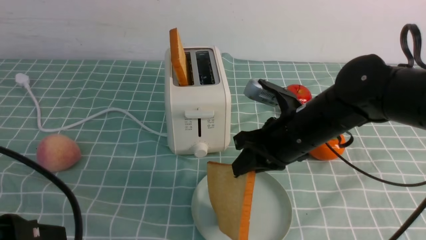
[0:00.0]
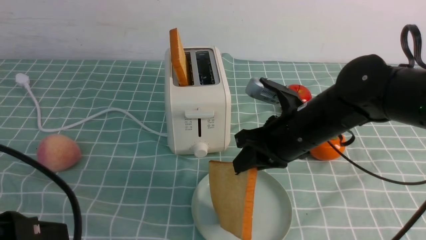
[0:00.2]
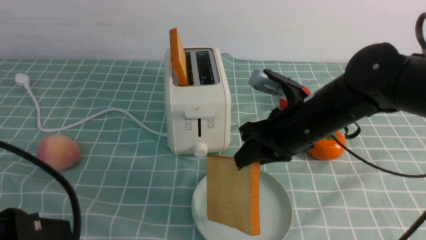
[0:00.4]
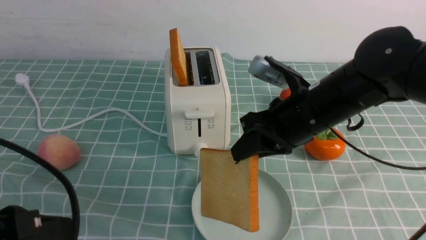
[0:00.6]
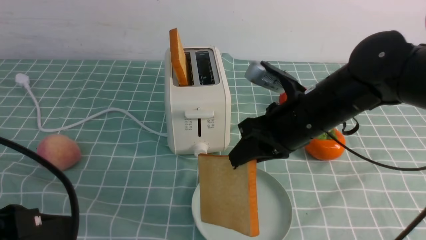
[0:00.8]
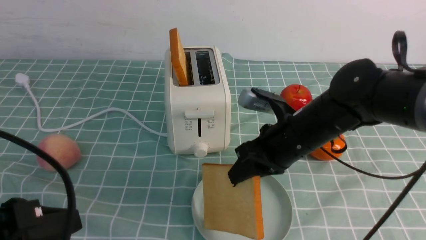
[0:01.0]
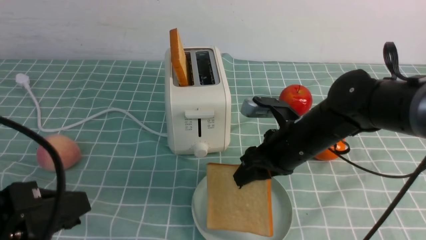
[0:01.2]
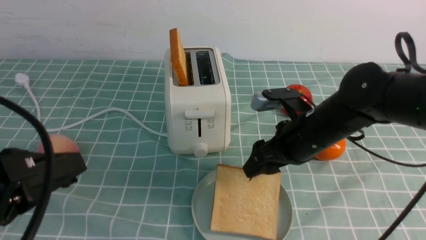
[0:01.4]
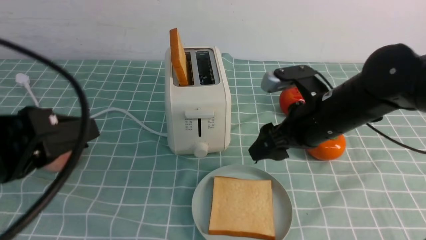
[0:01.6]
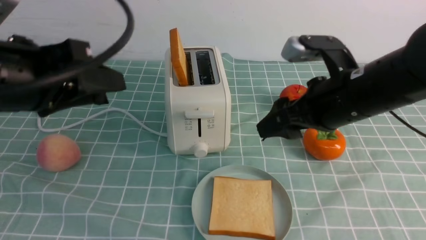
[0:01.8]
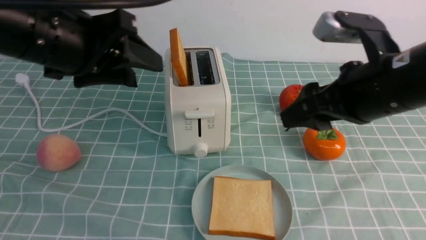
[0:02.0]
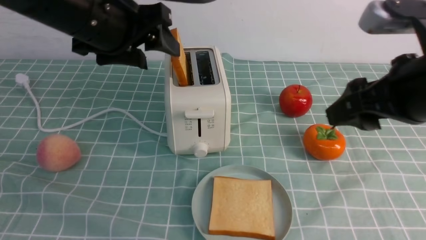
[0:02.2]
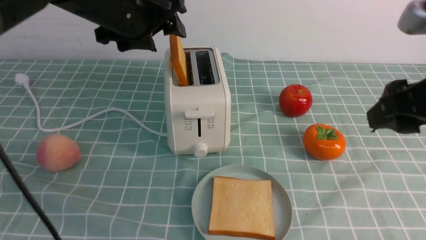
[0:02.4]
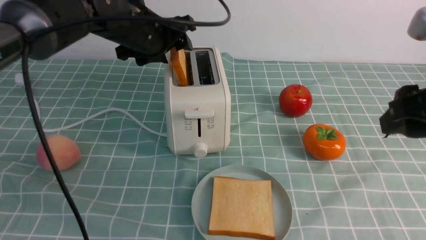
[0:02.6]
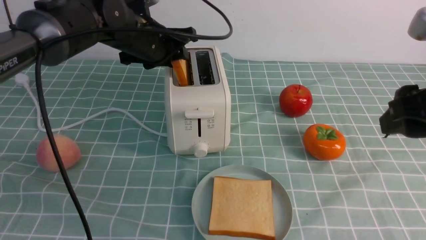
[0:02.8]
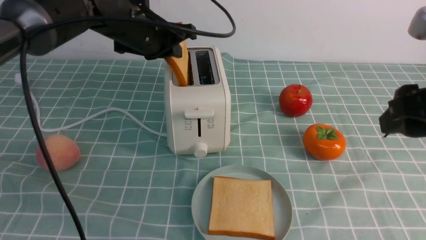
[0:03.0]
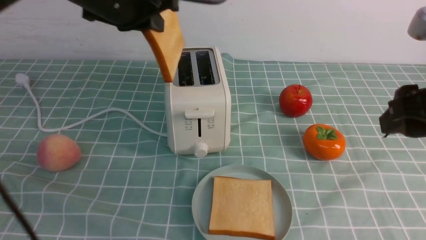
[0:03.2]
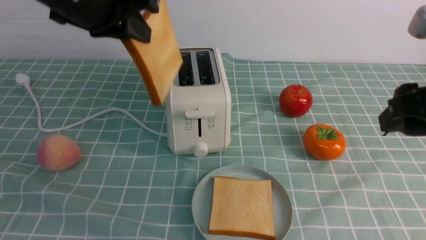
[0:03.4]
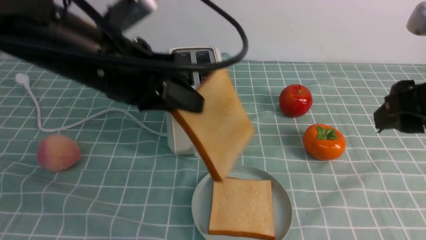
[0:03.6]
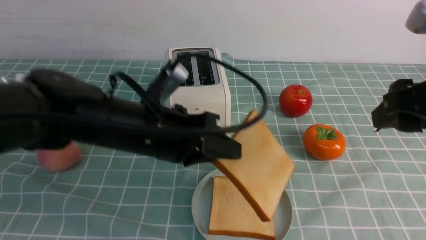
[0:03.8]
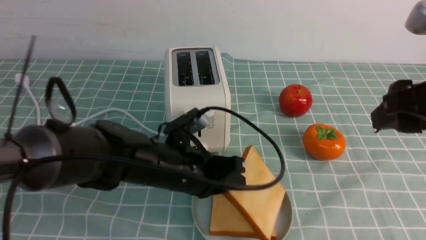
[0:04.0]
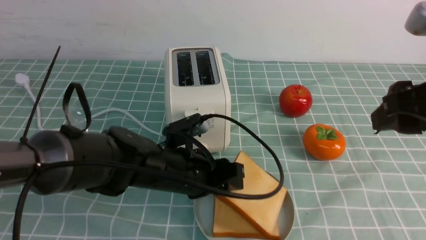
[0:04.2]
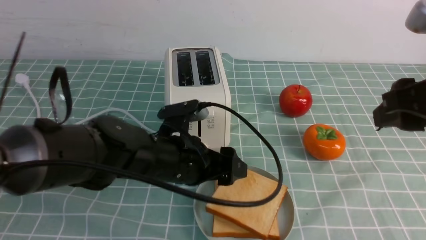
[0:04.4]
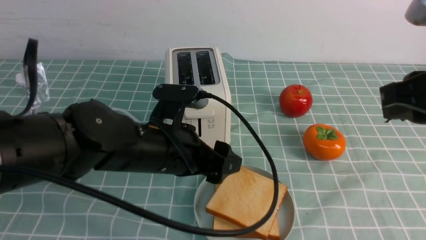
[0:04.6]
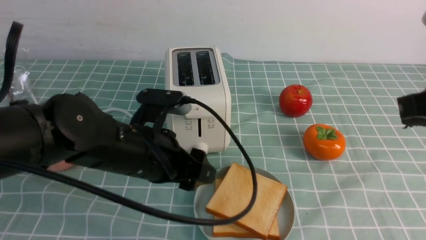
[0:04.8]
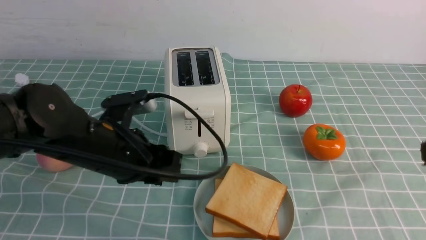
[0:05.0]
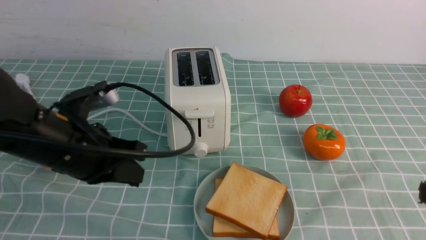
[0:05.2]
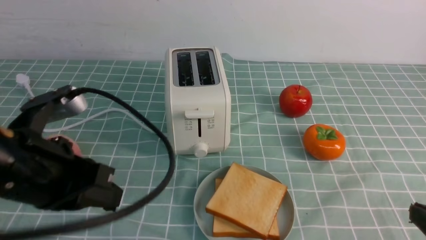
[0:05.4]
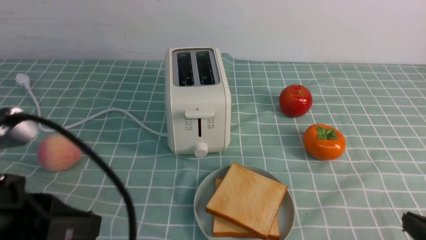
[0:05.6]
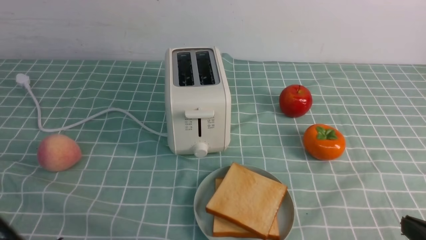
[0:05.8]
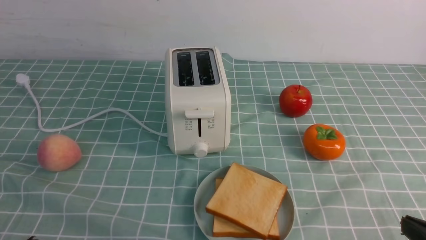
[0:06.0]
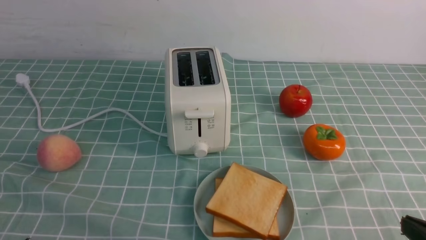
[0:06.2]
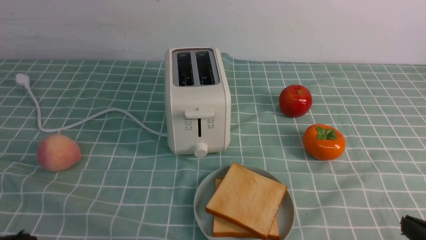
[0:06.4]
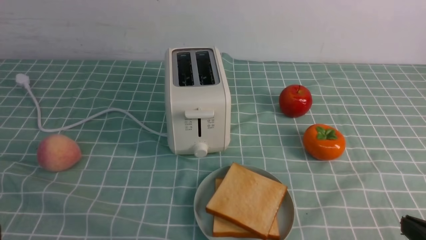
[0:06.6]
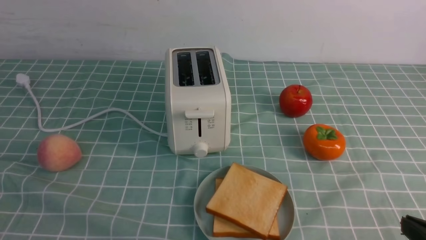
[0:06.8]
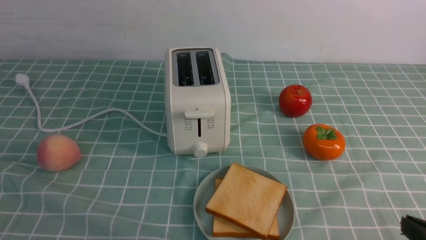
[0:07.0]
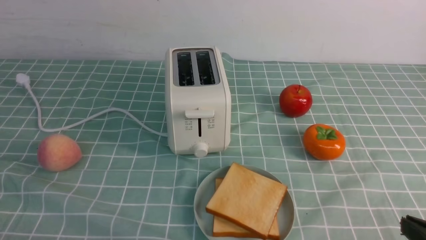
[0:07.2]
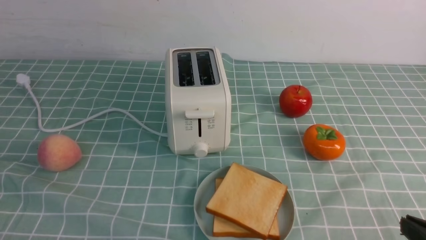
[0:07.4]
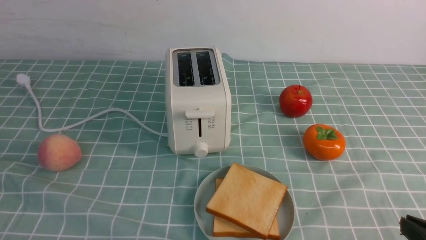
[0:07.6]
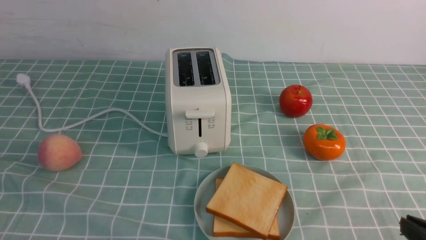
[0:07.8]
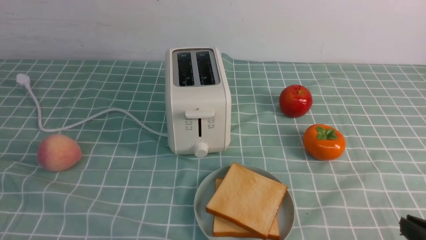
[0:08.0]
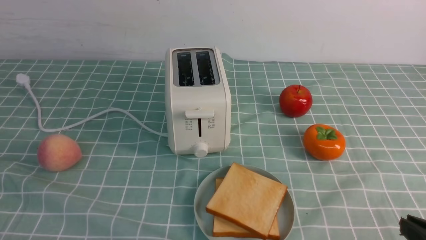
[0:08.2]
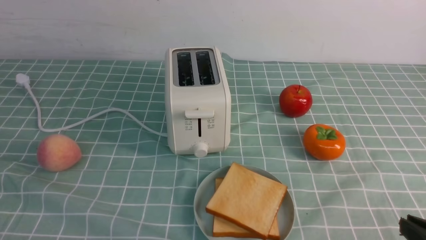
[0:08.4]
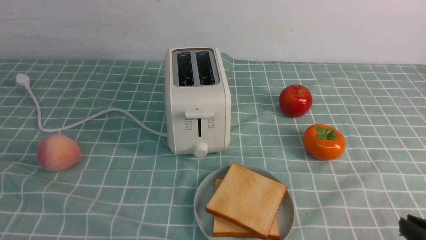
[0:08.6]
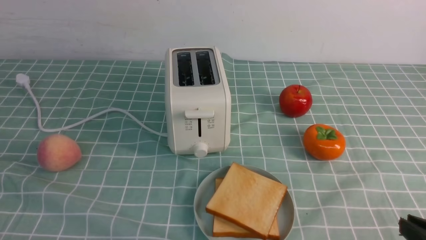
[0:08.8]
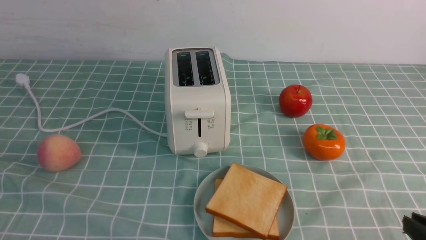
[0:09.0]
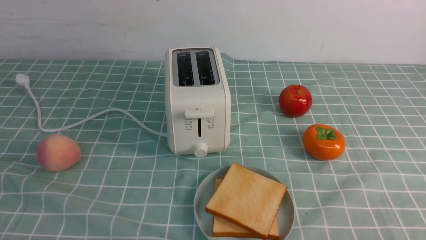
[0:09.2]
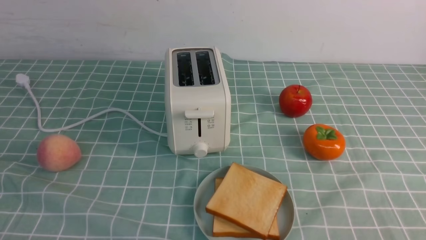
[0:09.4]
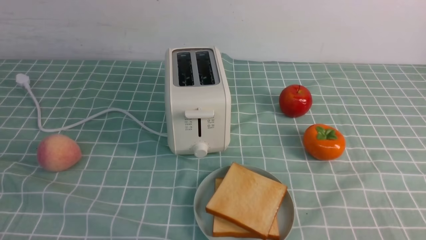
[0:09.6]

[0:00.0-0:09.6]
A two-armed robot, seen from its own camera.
Task of the whole recording: take toasted bread from bread machine on blue coffee table place on plate.
Step, 0:00.0 to 0:01.4: use the right arm to put a slice of bread into the plate.
Step, 0:01.6 to 0:03.2: use the left arm to take out a slice of bread.
Step, 0:03.4 to 0:05.6: use the left arm to put a slice of bread into the empty plate.
0:00.0 to 0:01.6: The left gripper heads forward and upward, covering about 10 cm. The right gripper opens.
0:01.6 to 0:03.2: The right gripper heads upward, backward and to the right, covering approximately 15 cm. Meanwhile the left gripper shifts about 20 cm forward, and closes its fingers.
0:03.2 to 0:04.8: The left gripper shifts roughly 20 cm downward and backward, and opens. The right gripper closes its fingers.
0:04.8 to 0:06.4: The left gripper shifts approximately 25 cm backward and to the left, and closes its fingers. The right gripper heads downward and backward, covering roughly 20 cm.
0:06.4 to 0:08.0: The left gripper heads downward, covering roughly 15 cm.

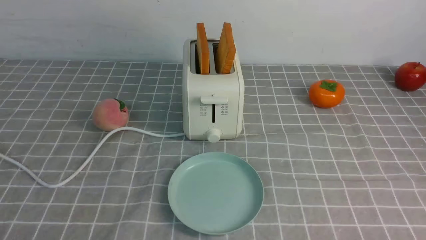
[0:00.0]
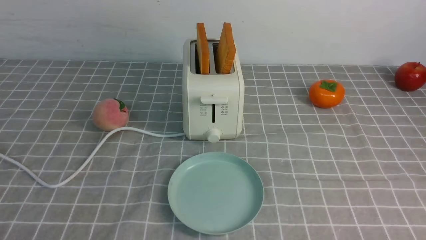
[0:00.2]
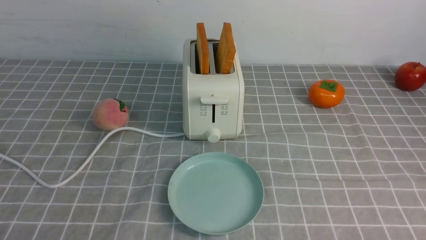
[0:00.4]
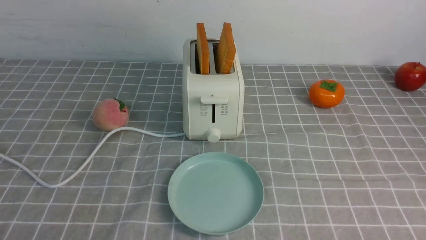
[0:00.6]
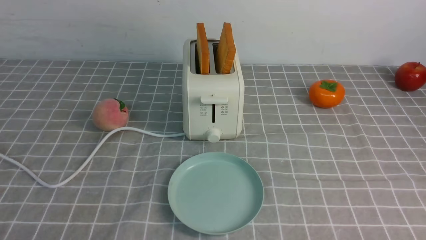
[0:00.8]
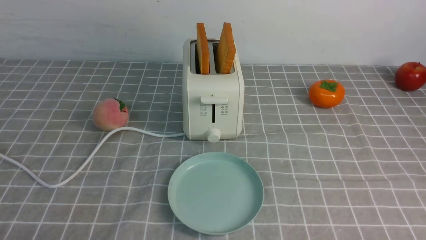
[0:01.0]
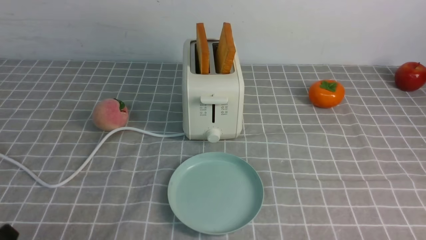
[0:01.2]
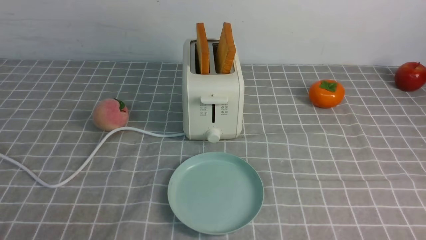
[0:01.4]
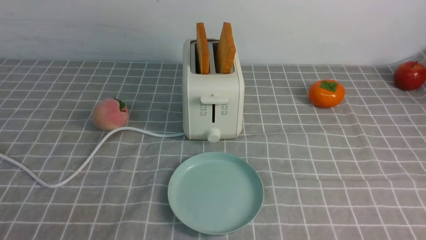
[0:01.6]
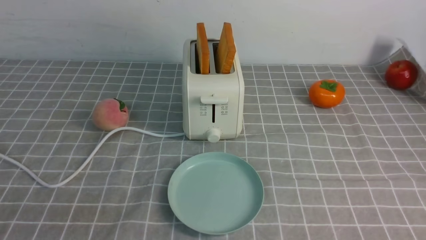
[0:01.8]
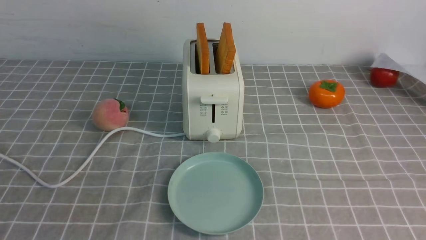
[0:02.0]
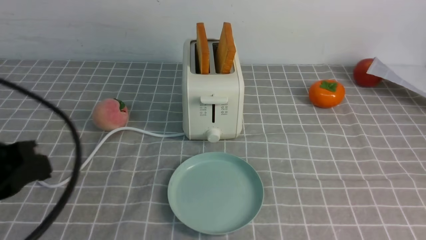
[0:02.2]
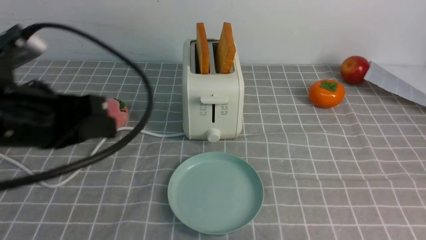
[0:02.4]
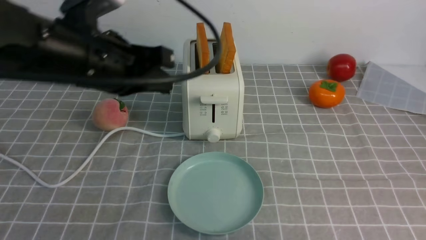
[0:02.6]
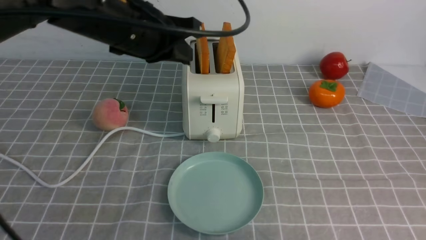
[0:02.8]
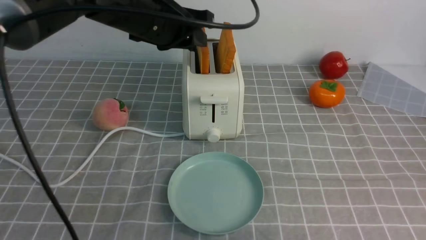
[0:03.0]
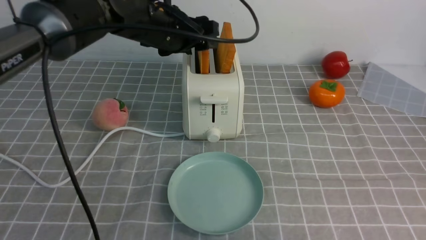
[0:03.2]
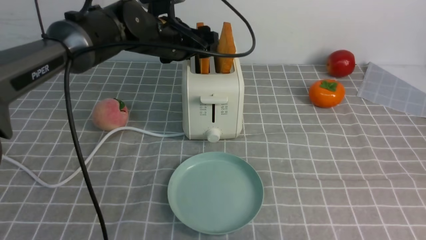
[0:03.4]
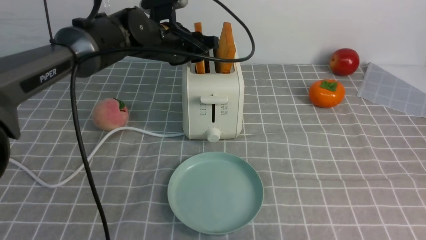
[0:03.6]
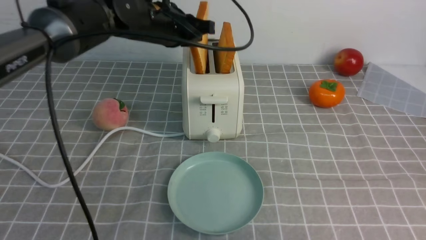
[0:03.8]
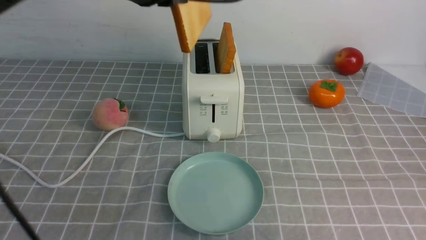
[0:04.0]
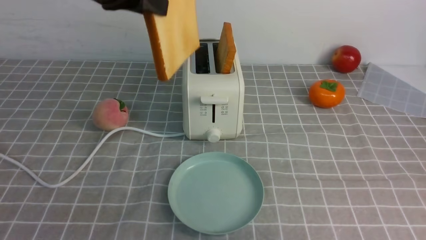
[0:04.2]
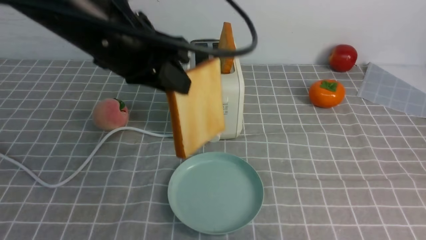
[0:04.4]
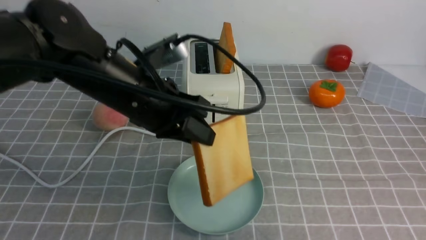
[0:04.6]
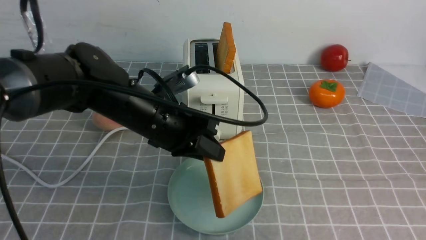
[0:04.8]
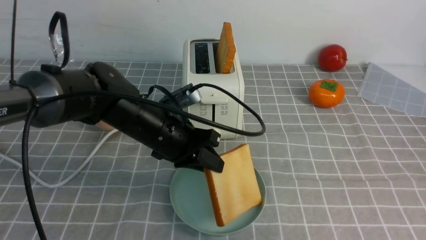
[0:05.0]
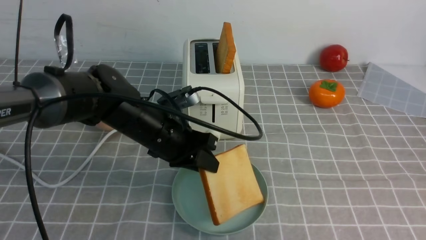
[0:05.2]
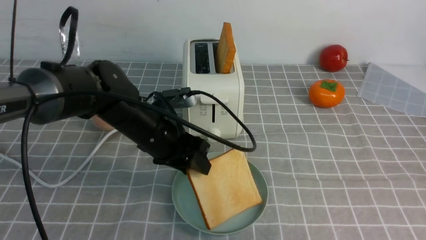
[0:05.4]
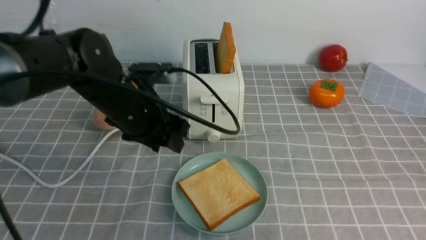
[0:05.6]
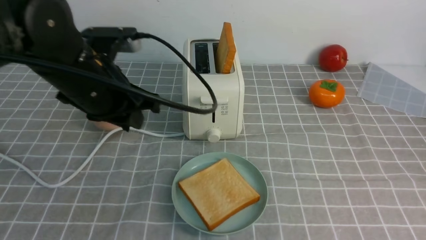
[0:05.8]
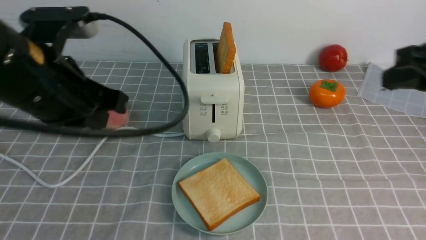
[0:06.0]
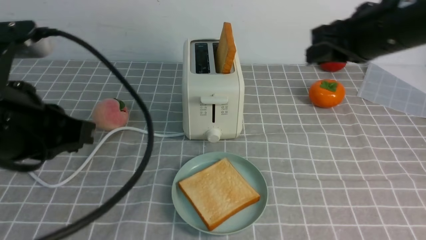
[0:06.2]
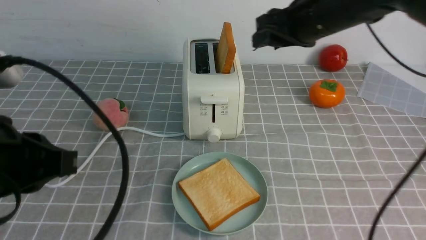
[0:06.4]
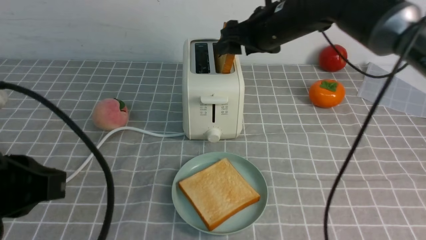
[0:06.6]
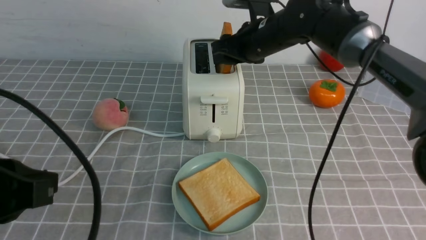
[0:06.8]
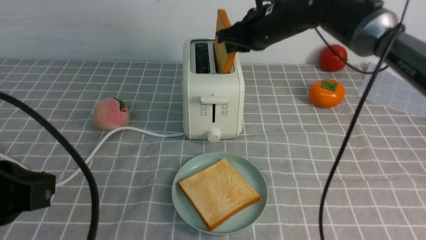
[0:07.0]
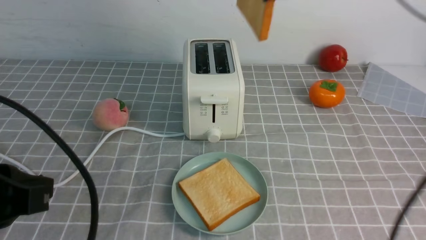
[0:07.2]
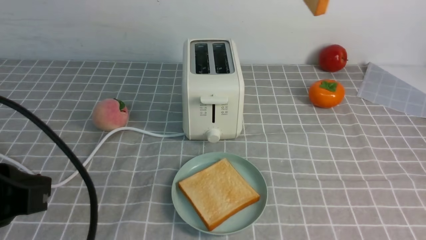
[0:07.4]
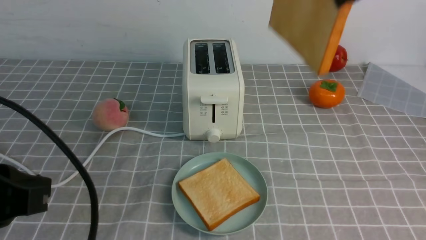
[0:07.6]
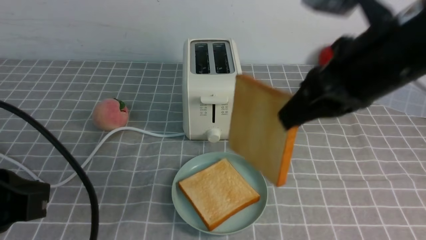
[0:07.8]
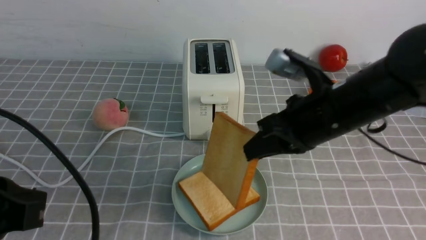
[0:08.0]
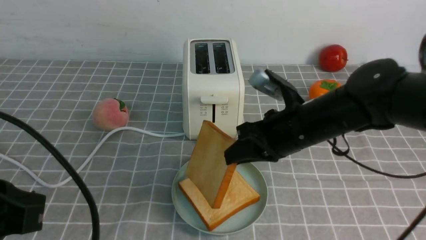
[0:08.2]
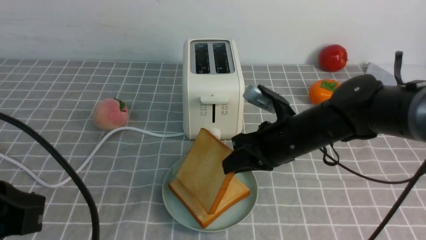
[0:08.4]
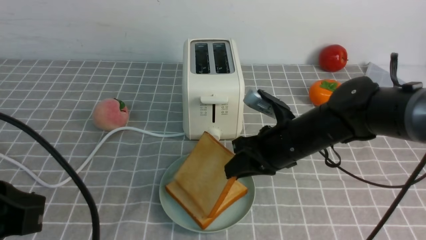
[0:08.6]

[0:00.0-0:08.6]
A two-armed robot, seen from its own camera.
Task of the whole recording: take toasted bread from bread machine on grey coffee table place on plate.
Step, 0:00.0 to 0:03.8: use the left arm to take out a slice of bread.
Step, 0:04.0 to 0:05.4: use the left arm to put a slice of bread into the empty plate.
Step, 0:05.6 to 0:07.0: use the right arm to take out a slice of bread.
0:01.4 to 0:02.8: The left gripper travels forward, upward and to the right by about 35 cm, and closes. Meanwhile the right gripper heads upward, covering roughly 15 cm, and closes its fingers.
0:02.8 to 0:04.4: The left gripper reaches about 15 cm forward, then returns, and opens, then closes again.
0:04.4 to 0:05.8: The left gripper travels downward by roughly 10 cm. Meanwhile the right gripper ends up about 5 cm from where it was.
0:05.8 to 0:07.2: The left gripper goes approximately 20 cm backward and to the left, and closes its fingers. The right gripper travels forward and to the left by approximately 30 cm, and opens and closes again.
0:07.2 to 0:08.6: The right gripper goes some 20 cm downward.
